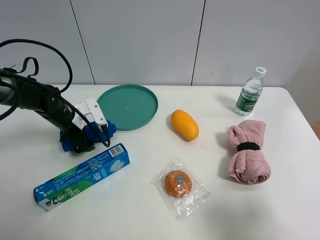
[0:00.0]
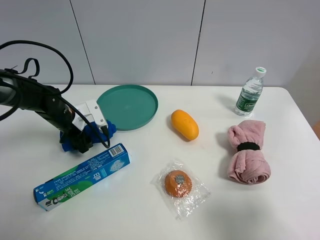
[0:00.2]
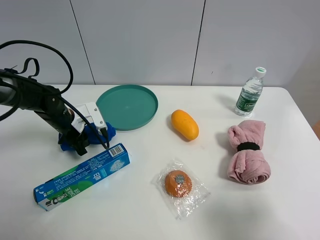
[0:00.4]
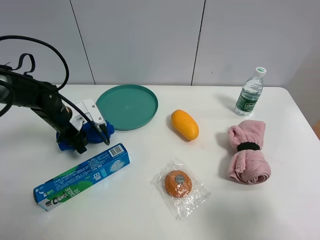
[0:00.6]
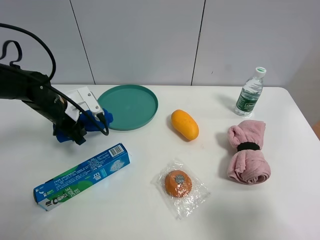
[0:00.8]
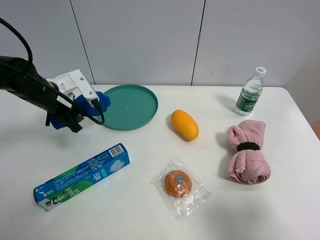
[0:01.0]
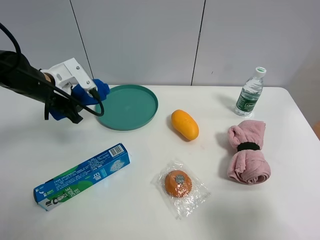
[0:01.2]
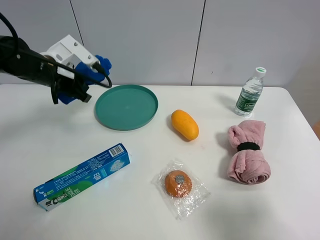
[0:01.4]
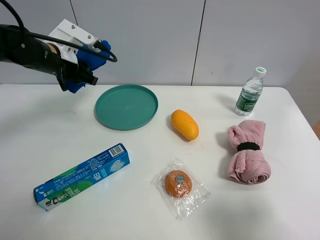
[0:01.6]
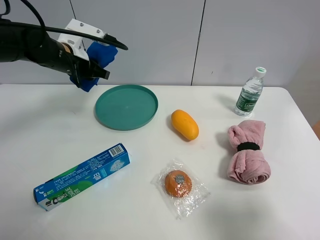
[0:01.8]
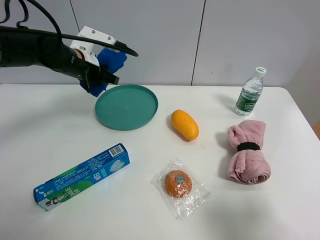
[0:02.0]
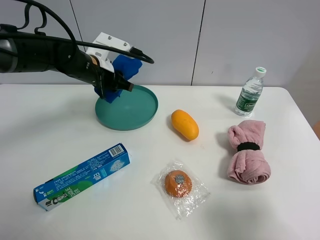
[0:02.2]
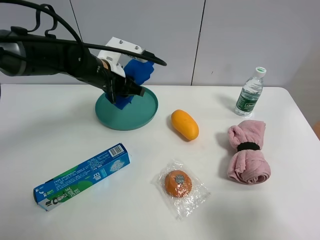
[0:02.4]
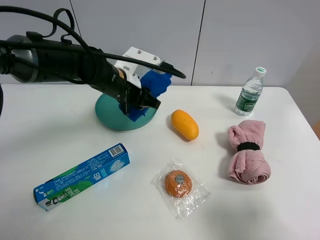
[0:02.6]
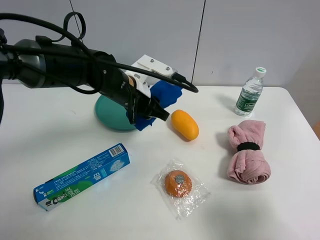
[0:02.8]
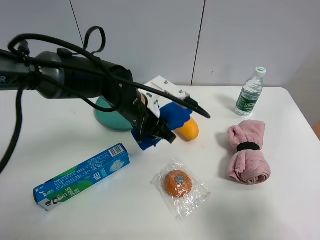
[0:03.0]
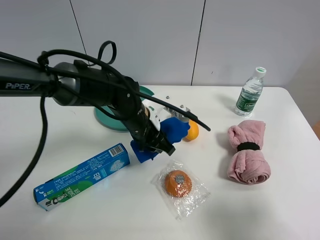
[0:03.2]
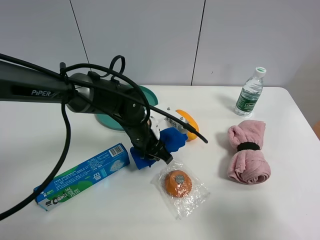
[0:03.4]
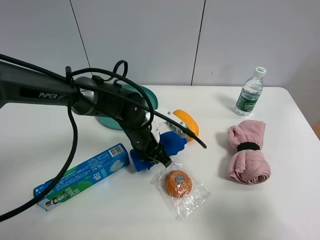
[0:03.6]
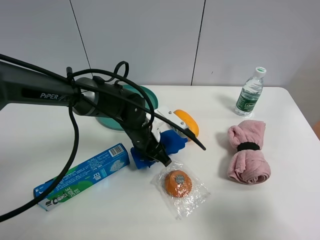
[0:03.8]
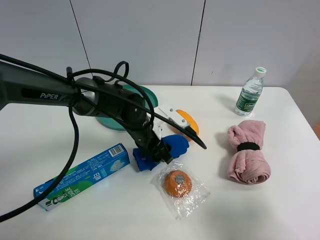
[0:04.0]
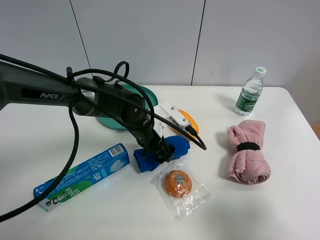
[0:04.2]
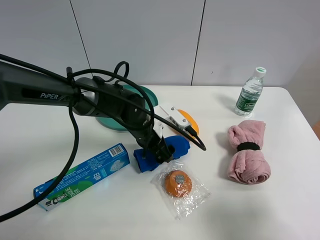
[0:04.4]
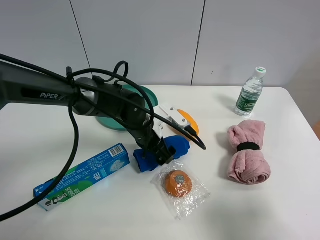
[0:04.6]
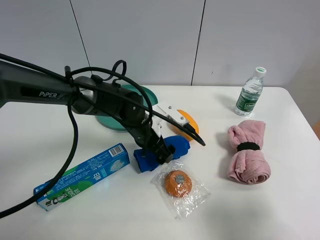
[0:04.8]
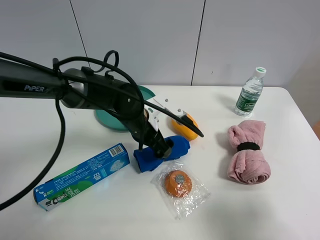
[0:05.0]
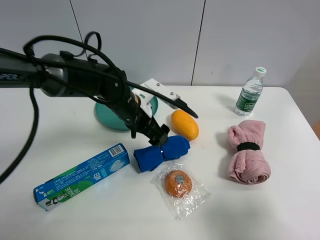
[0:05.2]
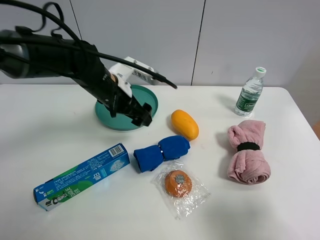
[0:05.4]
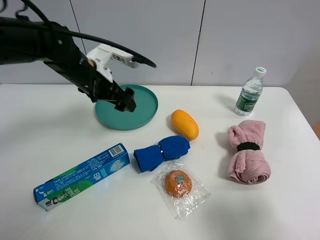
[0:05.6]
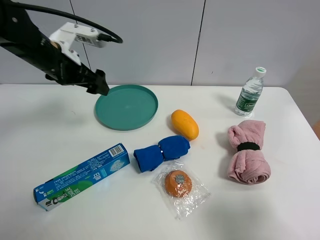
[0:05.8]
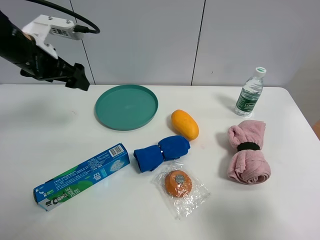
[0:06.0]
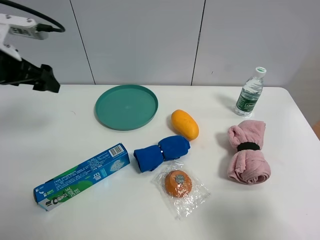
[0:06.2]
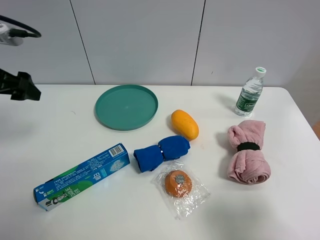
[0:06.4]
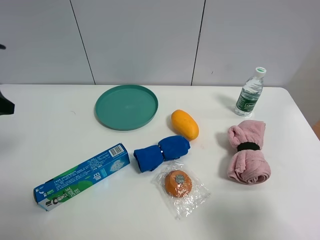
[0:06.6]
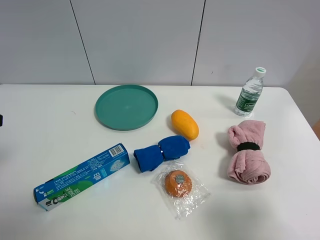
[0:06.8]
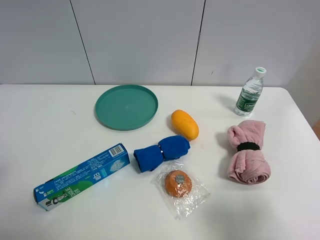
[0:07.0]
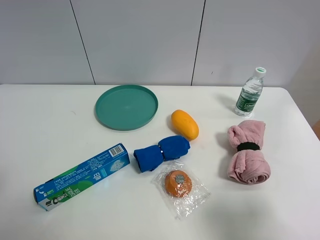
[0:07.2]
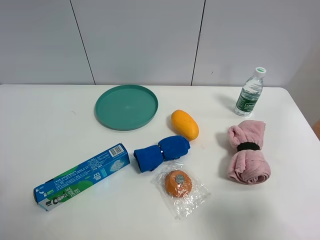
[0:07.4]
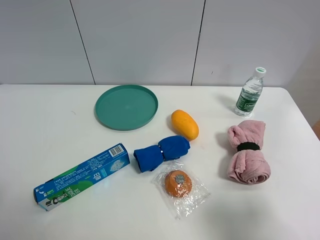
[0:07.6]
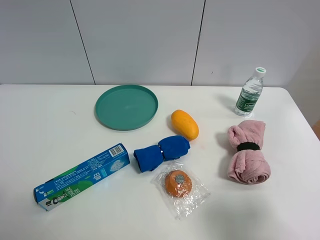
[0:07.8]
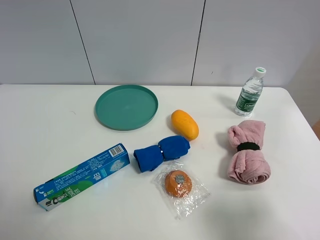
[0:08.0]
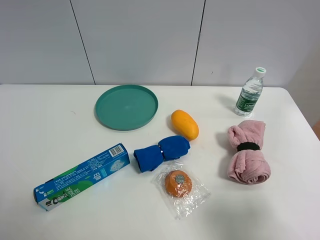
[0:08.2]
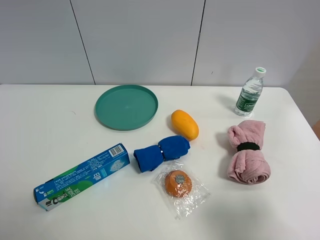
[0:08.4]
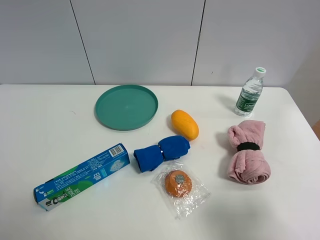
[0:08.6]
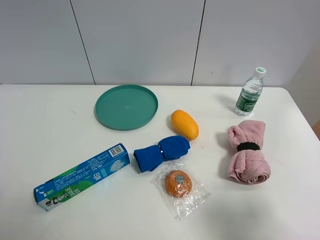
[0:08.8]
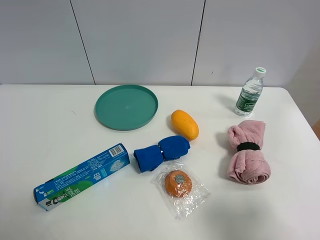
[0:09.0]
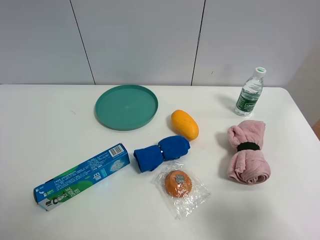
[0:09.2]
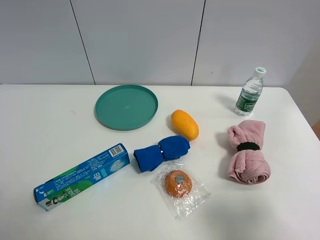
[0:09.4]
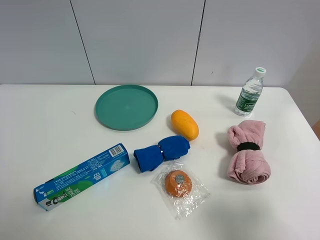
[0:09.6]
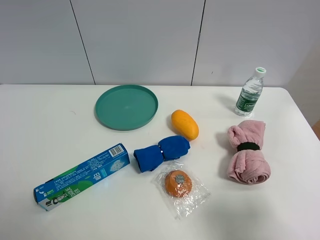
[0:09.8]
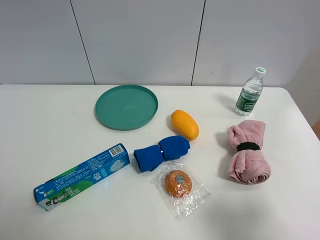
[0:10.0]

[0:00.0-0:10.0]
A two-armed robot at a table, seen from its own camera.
Task of the whole recording: the gripper move the object.
Step, 0:00.6 to 0:05.2: Place the blue towel on the table with the left gripper.
0:00.0 to 0:01.4: The left gripper moves upward, roughly 15 cm, and closes.
0:01.4 to 0:02.8: The left gripper is displaced to the right by some 15 cm.
0:02.8 to 0:04.2: The left gripper travels downward by roughly 10 cm, and opens up.
0:04.2 to 0:05.8: The left gripper shifts about 25 cm to the left and upward.
0:05.8 to 0:07.2: The left gripper goes about 30 cm backward and to the left.
0:08.6 to 0:10.0: Neither gripper changes place.

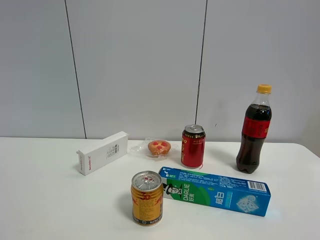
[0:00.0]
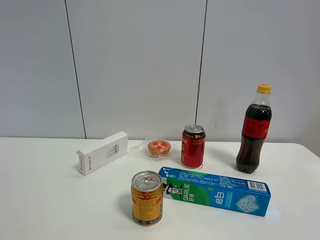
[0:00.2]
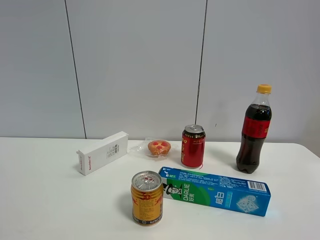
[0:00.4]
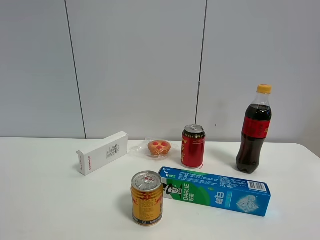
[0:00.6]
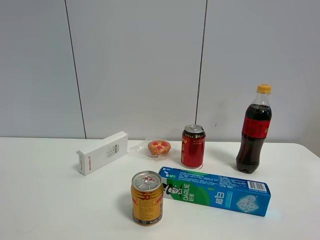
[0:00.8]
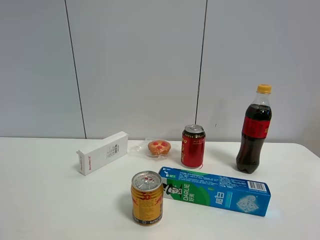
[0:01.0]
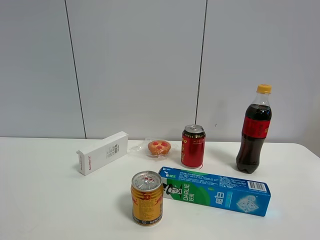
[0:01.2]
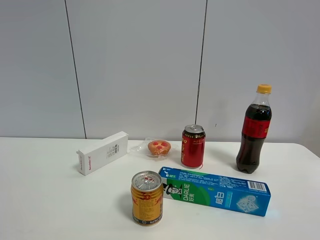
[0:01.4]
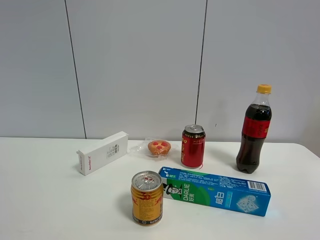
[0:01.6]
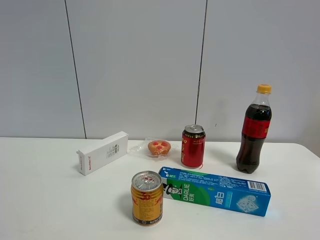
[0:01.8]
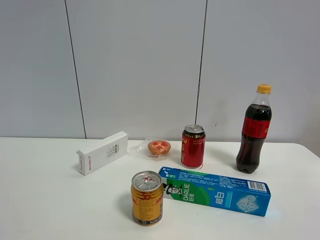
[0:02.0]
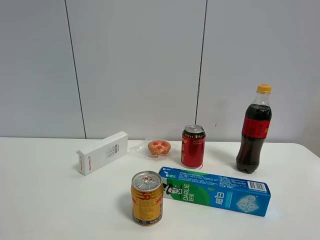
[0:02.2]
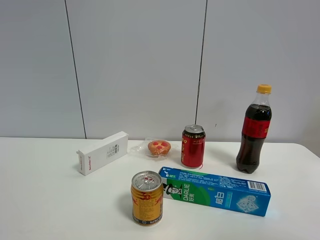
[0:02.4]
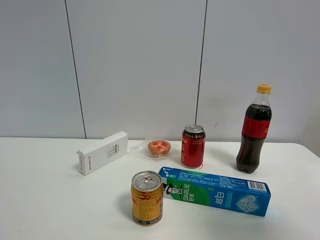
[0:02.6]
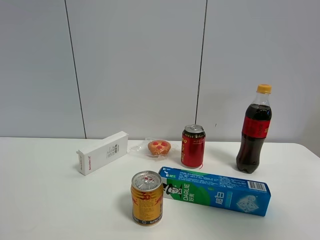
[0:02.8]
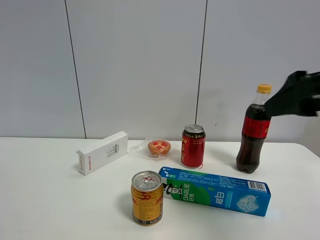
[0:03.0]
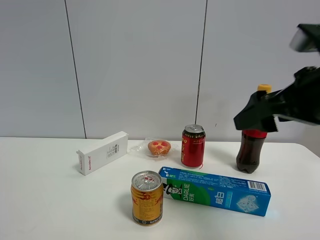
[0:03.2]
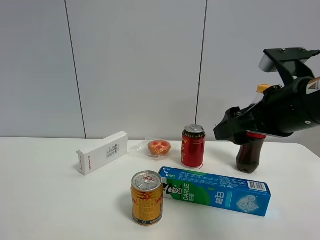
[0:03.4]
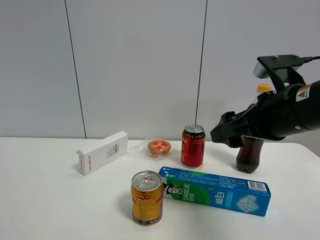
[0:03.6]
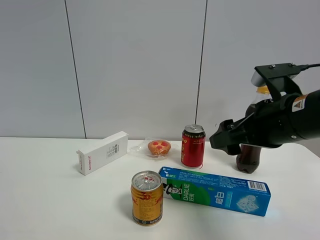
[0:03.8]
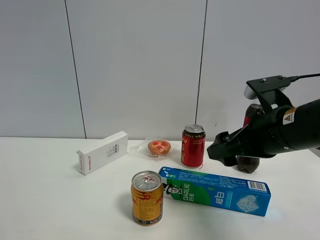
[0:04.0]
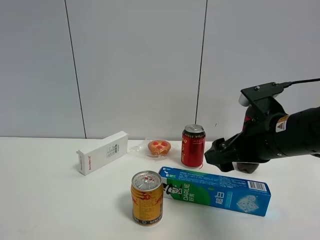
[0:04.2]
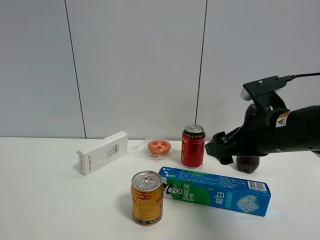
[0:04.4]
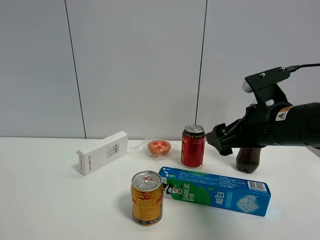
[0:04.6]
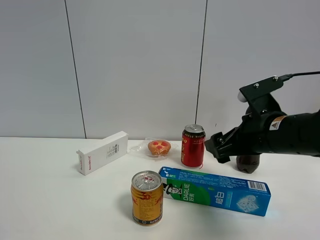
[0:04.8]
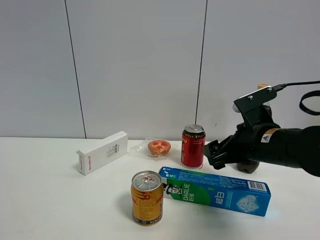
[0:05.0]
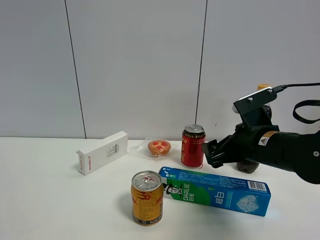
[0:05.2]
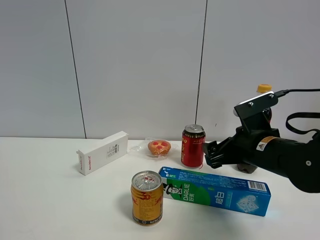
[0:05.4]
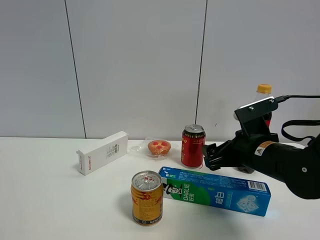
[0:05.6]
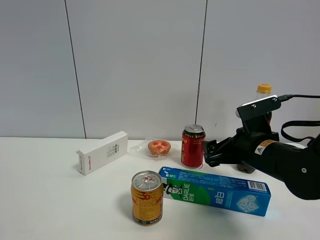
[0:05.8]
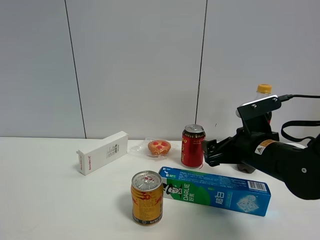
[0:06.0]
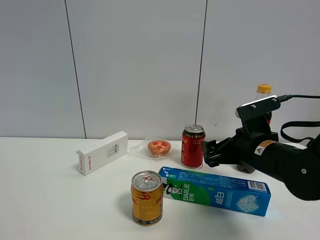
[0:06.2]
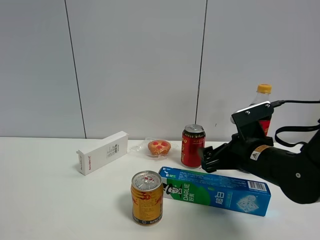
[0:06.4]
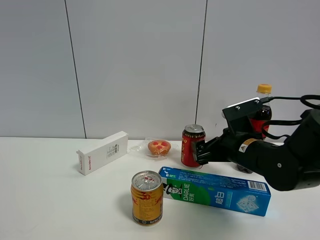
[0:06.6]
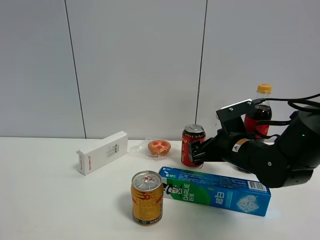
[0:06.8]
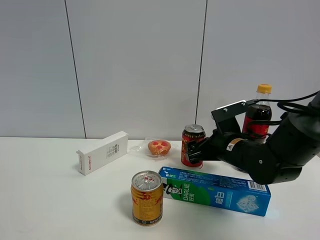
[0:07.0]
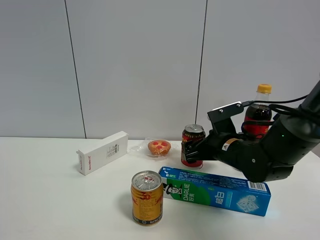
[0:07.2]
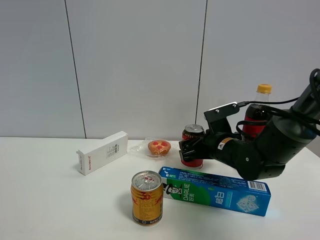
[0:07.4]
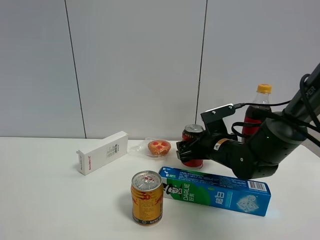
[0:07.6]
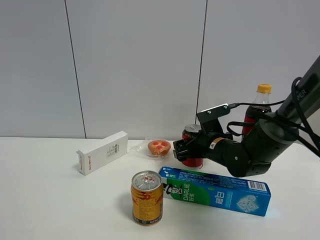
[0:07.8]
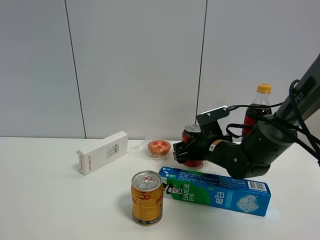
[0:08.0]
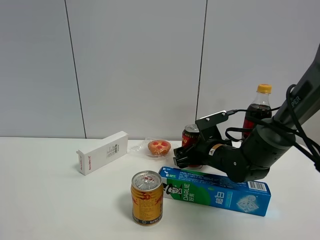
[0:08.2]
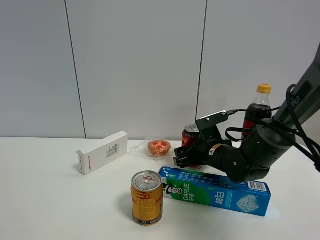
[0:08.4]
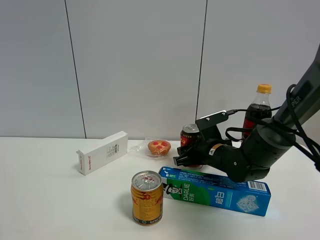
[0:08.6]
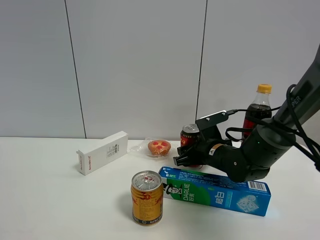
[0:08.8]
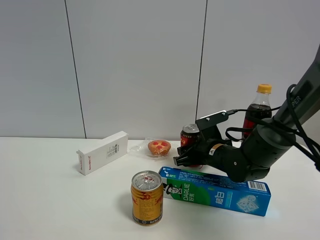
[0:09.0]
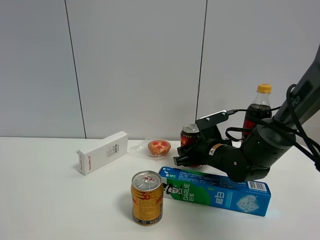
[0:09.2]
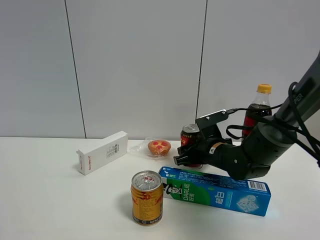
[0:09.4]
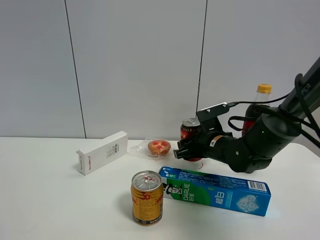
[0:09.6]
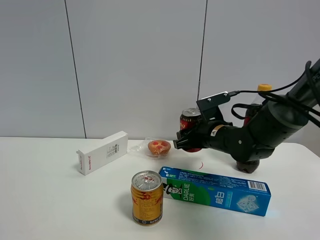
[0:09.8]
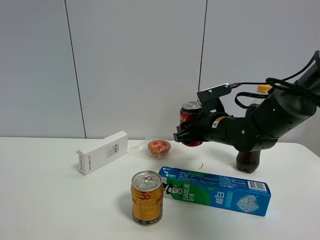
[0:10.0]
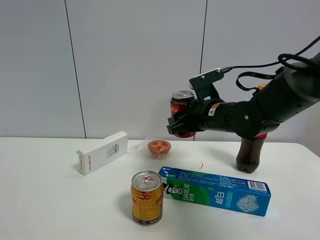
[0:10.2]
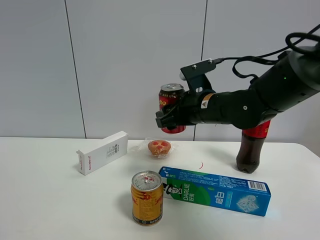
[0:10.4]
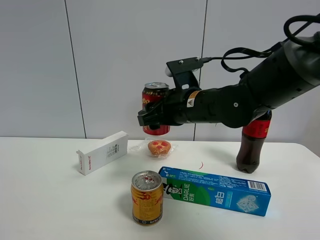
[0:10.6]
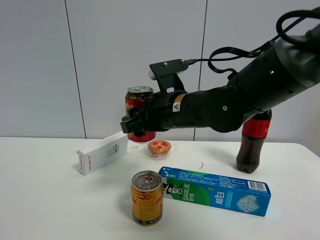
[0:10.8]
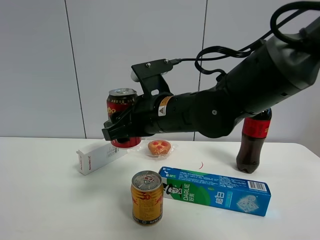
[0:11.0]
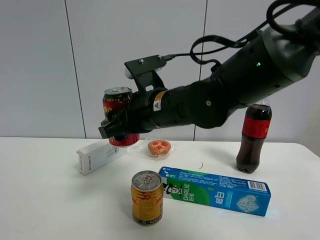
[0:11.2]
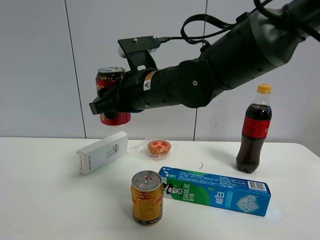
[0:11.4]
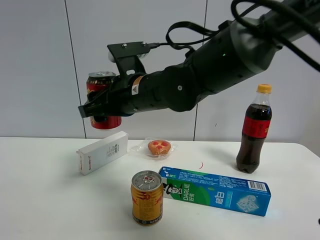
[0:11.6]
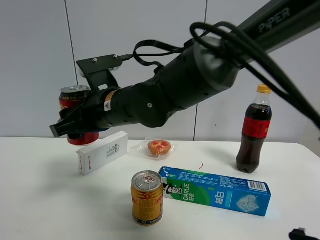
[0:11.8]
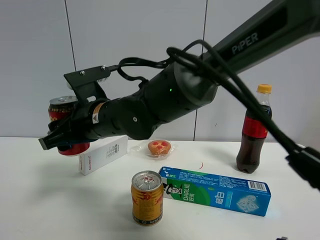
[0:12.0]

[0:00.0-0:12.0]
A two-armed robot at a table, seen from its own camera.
Task of the whole recording: the gripper move the object.
Step, 0:00.0 to 0:08.6: Grasp the Jia Duo Bao with the right gripper.
0:00.0 to 0:01.6: Neither gripper changes place.
0:01.6 to 0:03.0: The right gripper is displaced forward by roughly 20 cm.
0:03.0 to 0:04.4: The right gripper shifts some 15 cm downward and forward.
0:04.4 to 0:06.0: The right gripper is displaced downward by about 5 cm.
0:06.0 to 0:07.6: The right gripper shifts about 10 cm forward.
0:07.6 to 0:09.0: The right gripper closes up.
0:09.0 to 0:10.4: The right gripper travels upward by roughly 15 cm.
0:10.4 to 0:12.0: The right gripper travels to the left by about 20 cm.
